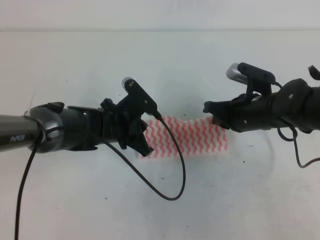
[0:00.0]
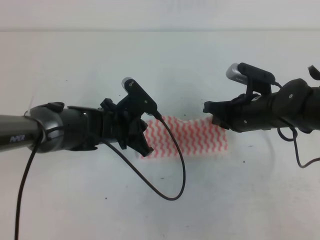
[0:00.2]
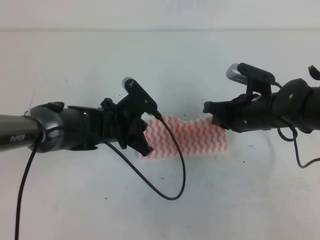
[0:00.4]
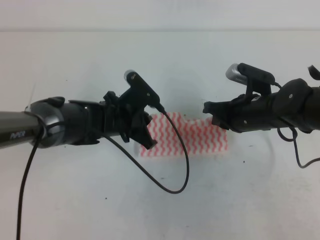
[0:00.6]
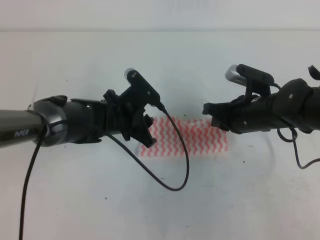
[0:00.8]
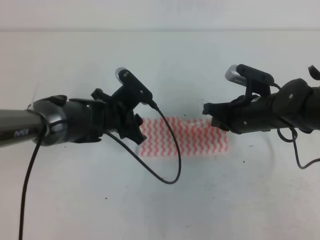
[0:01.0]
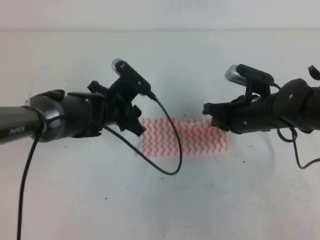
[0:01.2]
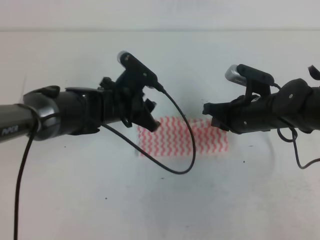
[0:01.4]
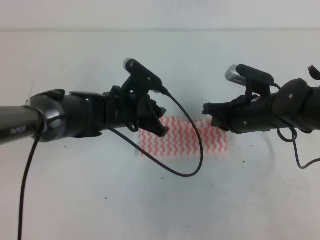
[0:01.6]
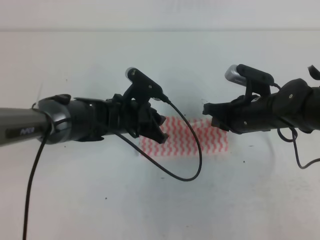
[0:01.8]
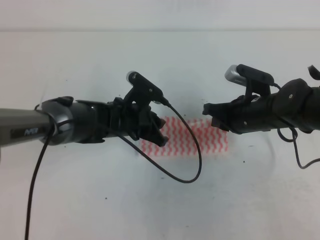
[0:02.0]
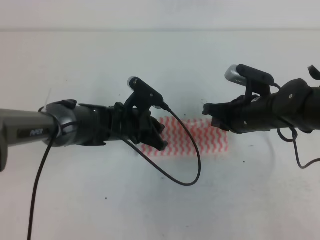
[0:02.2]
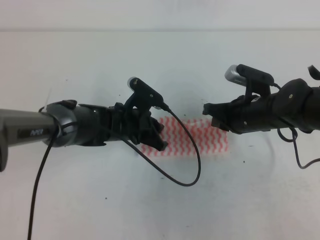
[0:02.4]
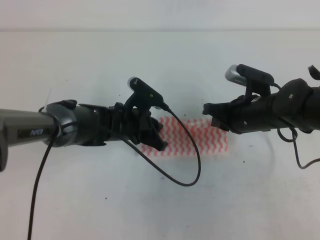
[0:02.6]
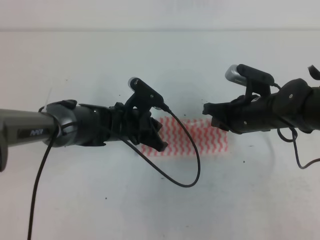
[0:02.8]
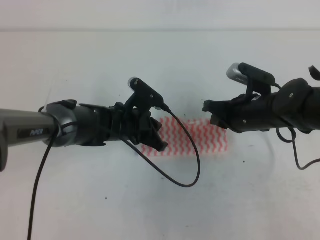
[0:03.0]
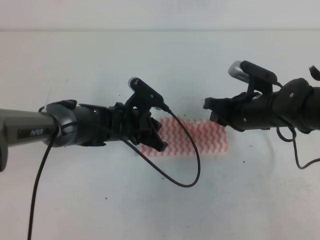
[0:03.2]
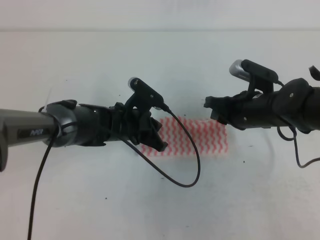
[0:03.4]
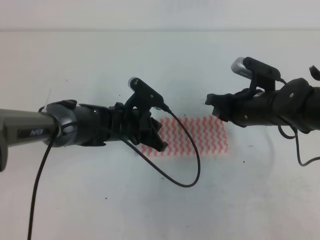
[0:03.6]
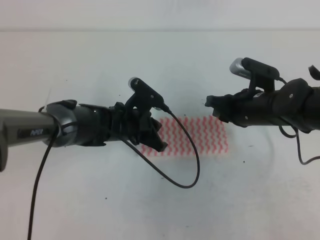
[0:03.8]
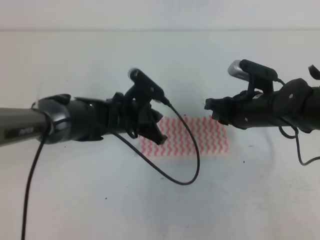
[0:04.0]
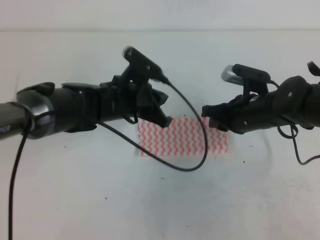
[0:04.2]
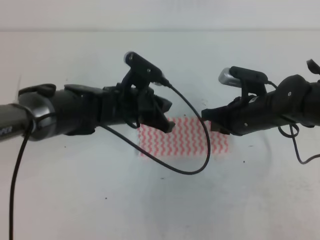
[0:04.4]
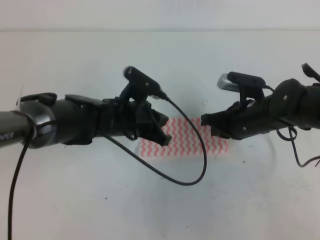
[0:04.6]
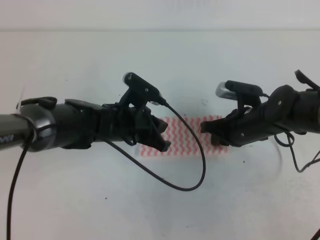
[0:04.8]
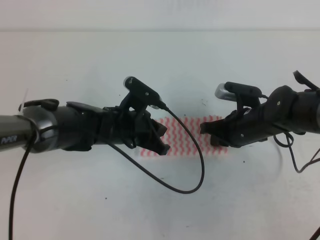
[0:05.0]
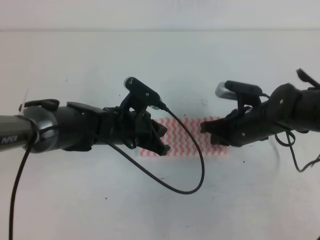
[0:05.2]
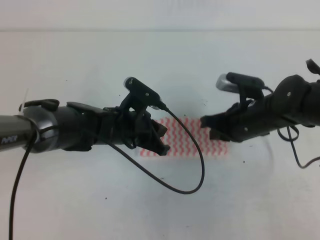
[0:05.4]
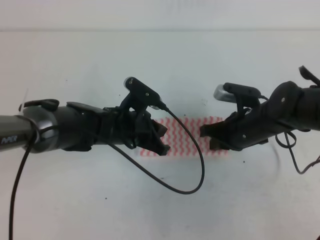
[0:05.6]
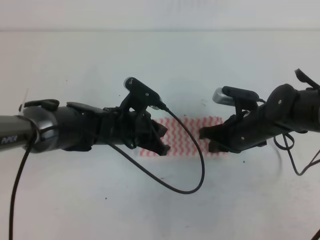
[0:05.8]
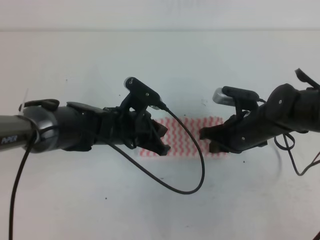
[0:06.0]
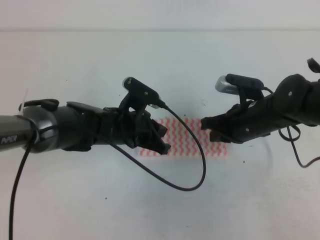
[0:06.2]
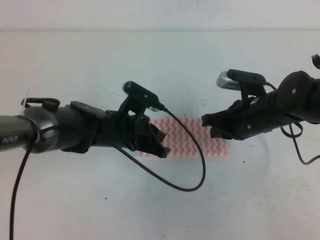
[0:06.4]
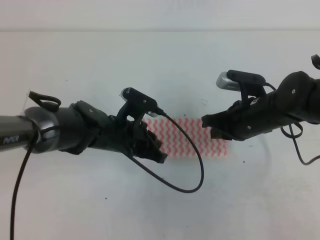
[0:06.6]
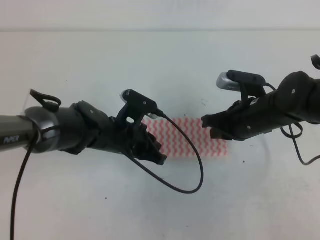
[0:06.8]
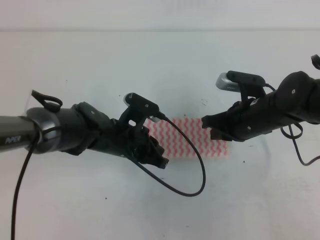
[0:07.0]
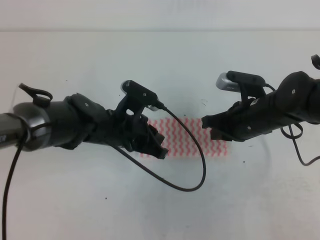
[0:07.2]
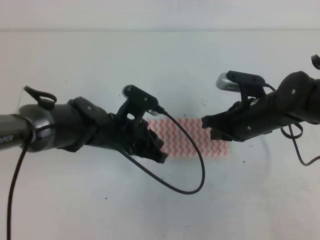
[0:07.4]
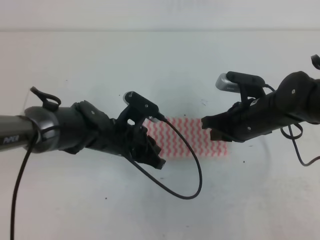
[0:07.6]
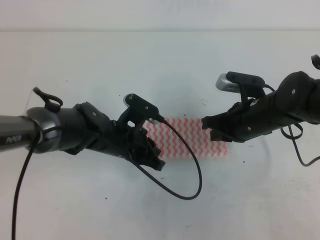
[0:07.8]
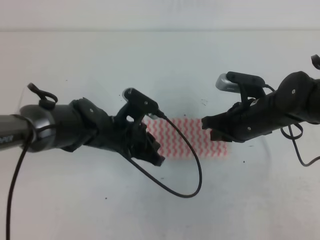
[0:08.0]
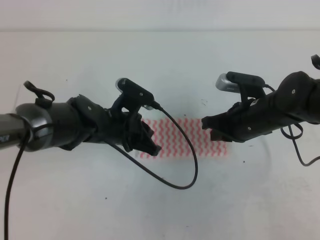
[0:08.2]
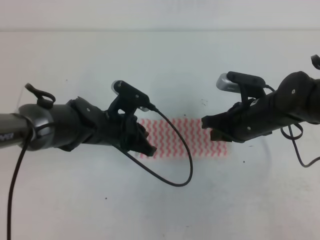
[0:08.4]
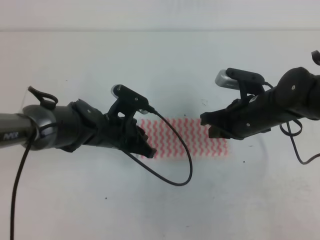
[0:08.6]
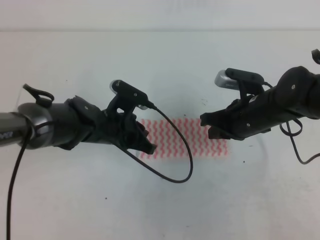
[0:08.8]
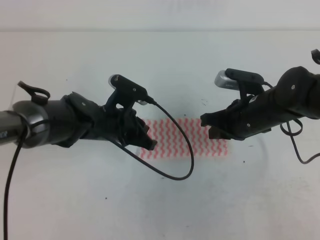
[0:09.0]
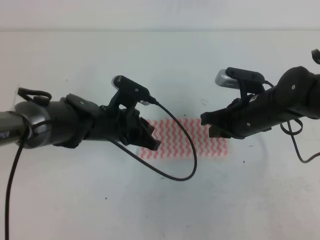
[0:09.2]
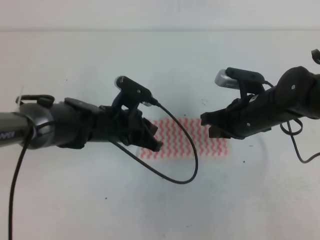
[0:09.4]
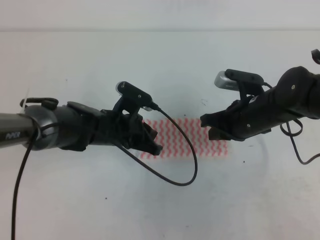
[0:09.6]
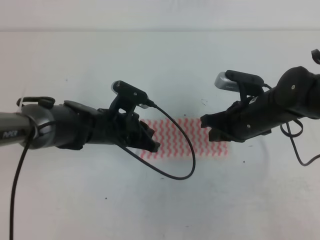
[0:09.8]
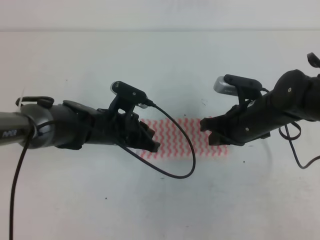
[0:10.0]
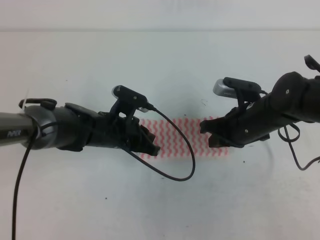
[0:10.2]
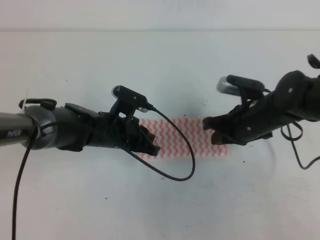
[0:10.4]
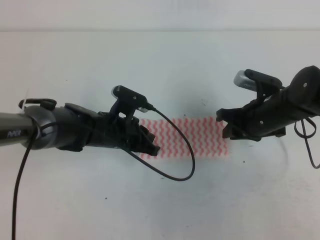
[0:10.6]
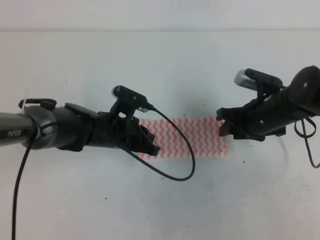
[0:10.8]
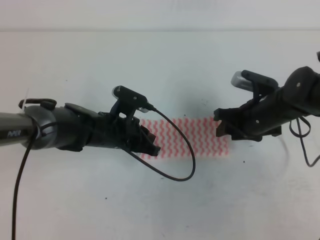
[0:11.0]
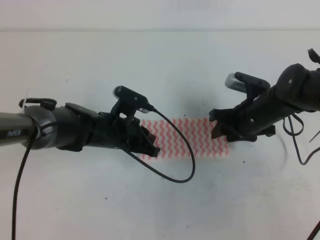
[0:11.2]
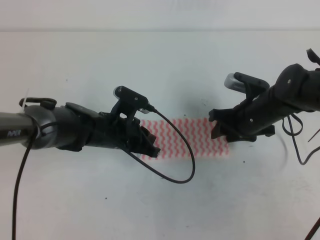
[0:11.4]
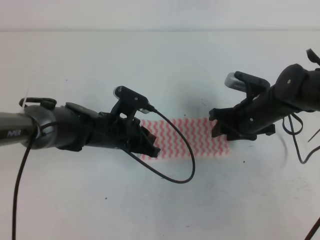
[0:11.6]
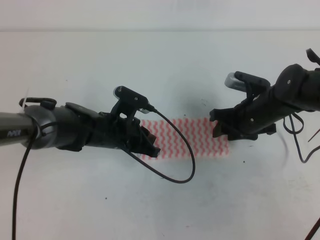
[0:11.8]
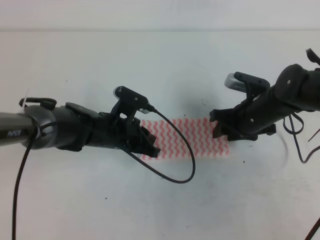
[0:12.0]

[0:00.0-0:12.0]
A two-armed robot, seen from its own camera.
Step, 0:00.0 to 0:04.4: Fold the towel from right to left with the right gripper.
Step, 0:04.6 to 0:08.8: Tidy up the towels.
0:00.0 to 0:01.6: The left gripper opens its fingers.
0:01.6 to 0:03.0: The left gripper closes up.
0:03.0 to 0:04.4: The left gripper heads upward, covering approximately 5 cm.
0:06.0 to 0:10.4: The grippers make only small movements.
0:10.4 to 0:12.0: The right gripper opens up.

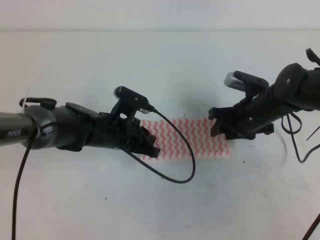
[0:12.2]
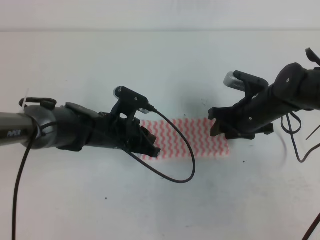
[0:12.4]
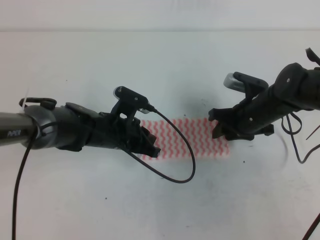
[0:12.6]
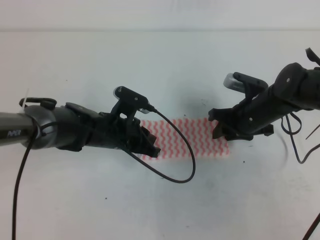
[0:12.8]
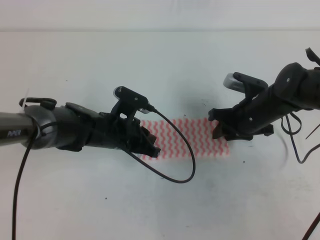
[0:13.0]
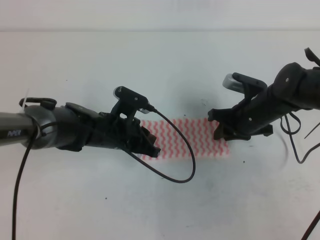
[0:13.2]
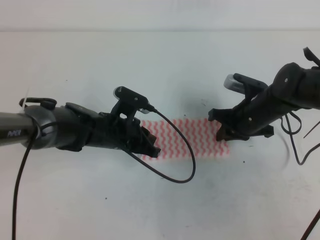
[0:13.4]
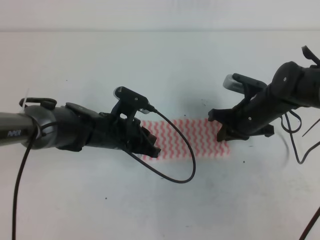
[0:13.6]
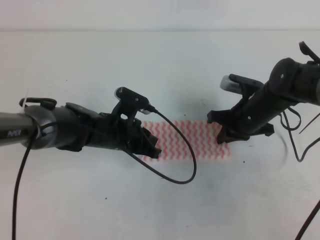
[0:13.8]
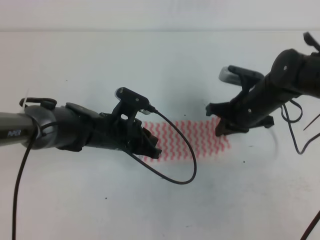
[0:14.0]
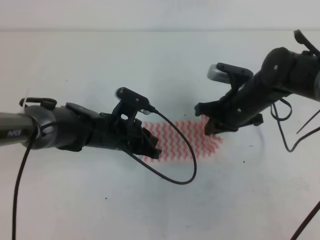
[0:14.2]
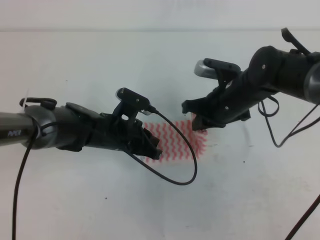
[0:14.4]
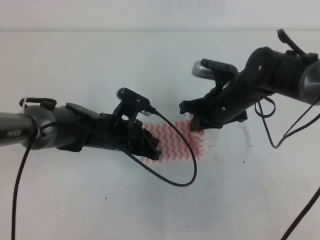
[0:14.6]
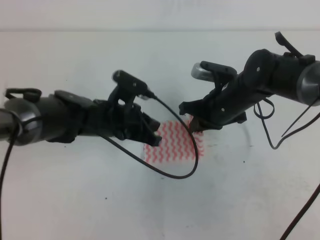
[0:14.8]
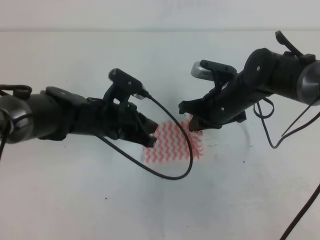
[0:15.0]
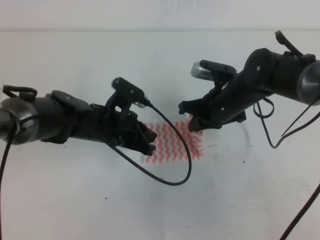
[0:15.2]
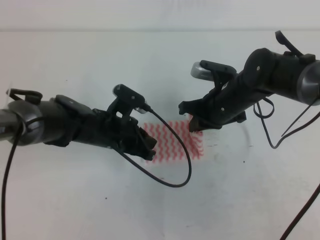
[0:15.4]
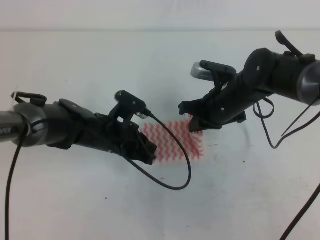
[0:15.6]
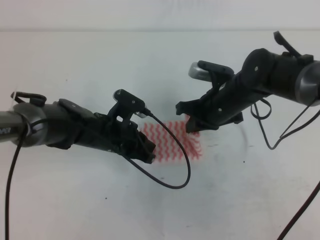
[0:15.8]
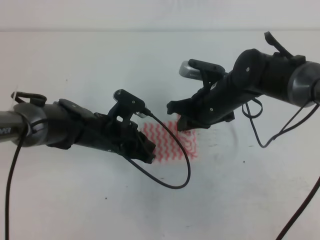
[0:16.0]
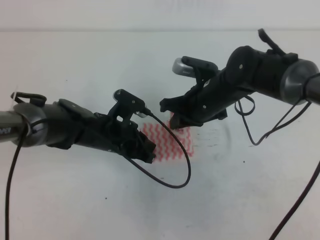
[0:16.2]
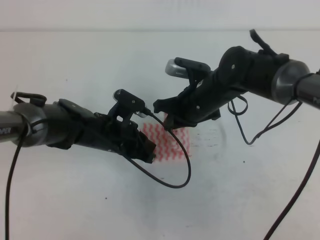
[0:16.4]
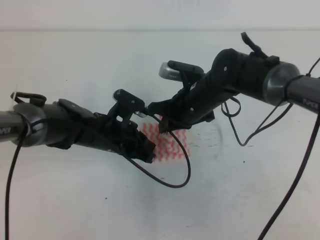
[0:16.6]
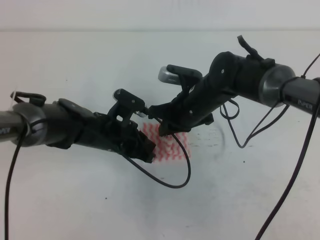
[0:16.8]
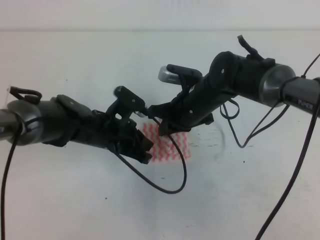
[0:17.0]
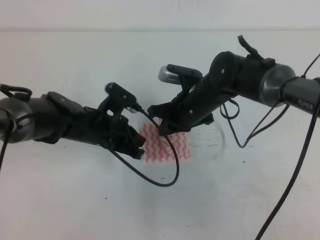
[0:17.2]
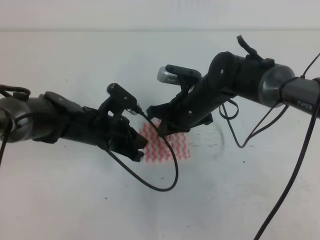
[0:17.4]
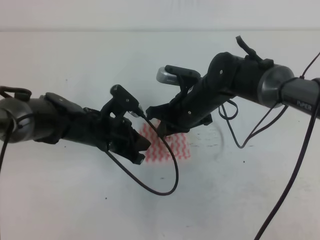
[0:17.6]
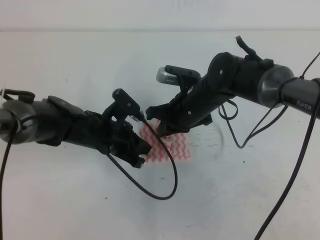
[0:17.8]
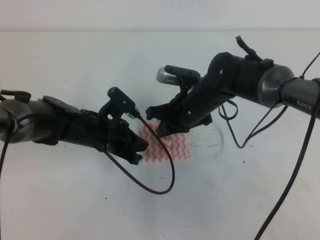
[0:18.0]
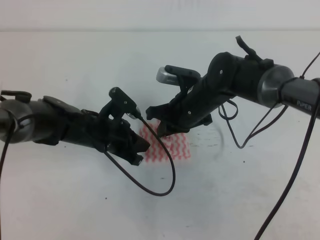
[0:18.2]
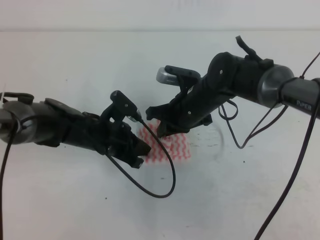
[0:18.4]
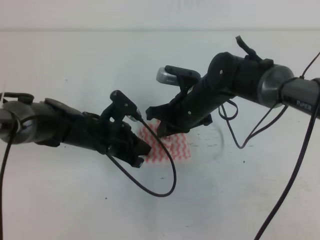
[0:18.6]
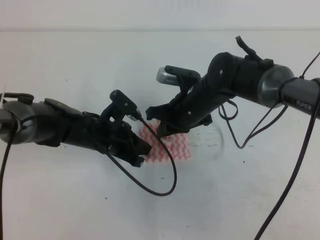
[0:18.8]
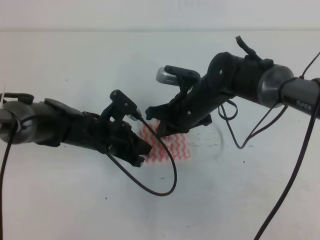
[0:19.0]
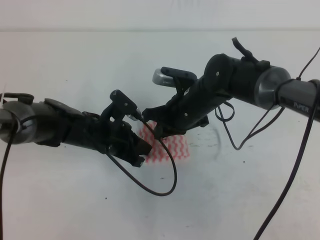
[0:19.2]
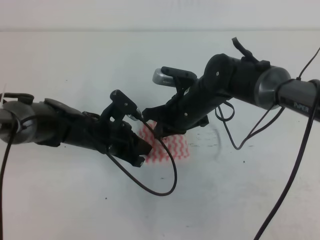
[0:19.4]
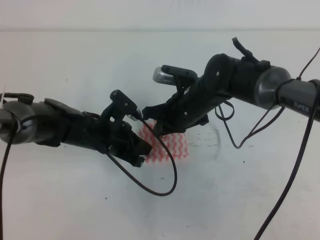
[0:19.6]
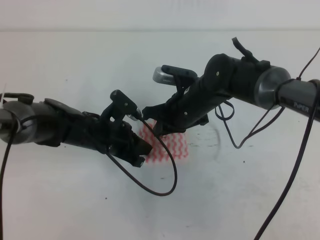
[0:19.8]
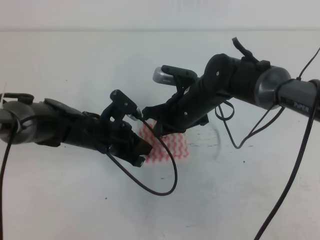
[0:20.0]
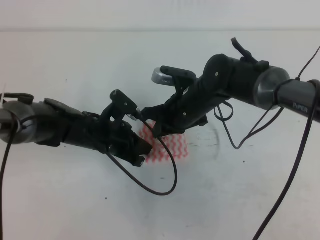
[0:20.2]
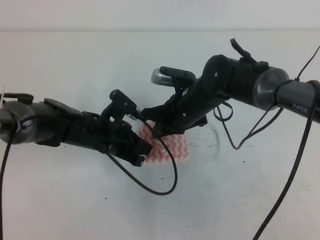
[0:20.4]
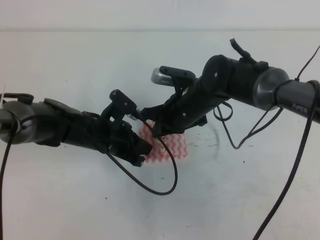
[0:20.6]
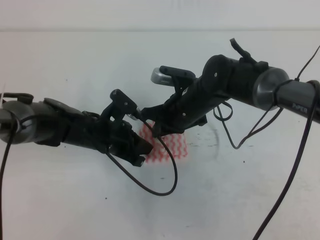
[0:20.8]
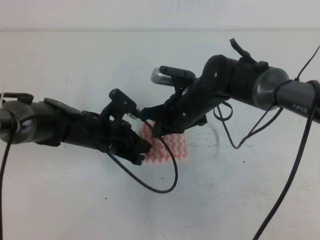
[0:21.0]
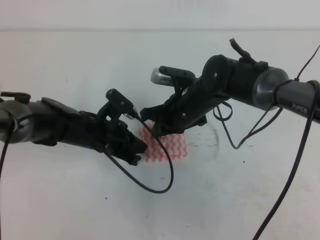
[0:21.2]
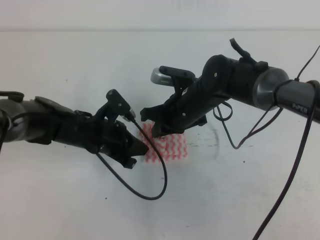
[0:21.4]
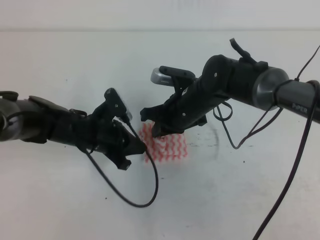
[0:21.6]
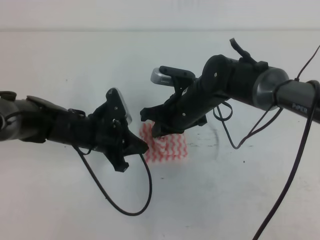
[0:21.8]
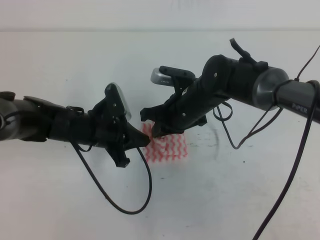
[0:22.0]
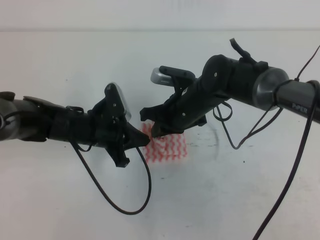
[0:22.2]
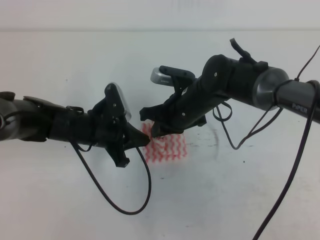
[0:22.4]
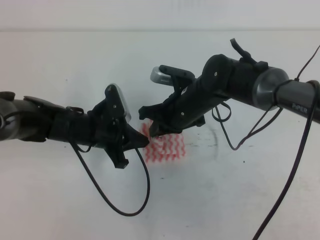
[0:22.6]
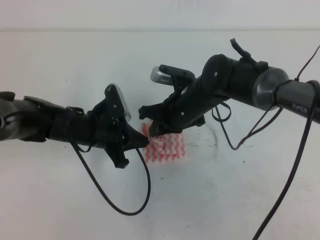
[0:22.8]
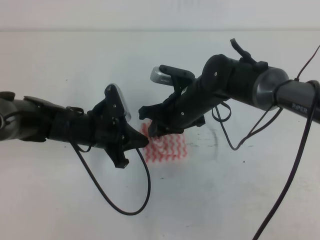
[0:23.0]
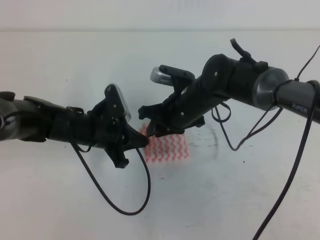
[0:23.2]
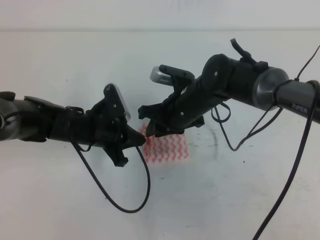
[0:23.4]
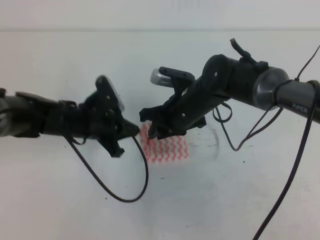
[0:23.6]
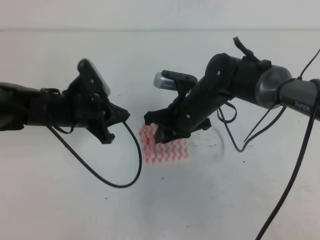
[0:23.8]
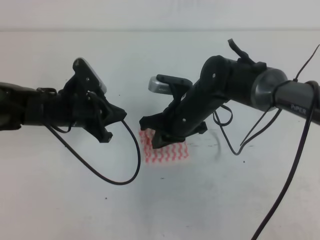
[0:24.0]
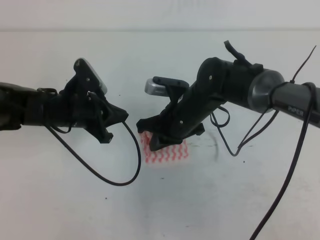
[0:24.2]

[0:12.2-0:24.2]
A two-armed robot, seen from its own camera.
0:12.2 to 0:13.8: The right gripper closes its fingers.
0:13.8 to 0:15.2: The right gripper is displaced to the left by approximately 5 cm.
0:15.2 to 0:16.6: The right gripper travels to the left by approximately 5 cm.
0:16.6 to 0:18.2: The grippers move only a little.
0:18.2 to 0:21.2: Neither gripper changes place.
0:22.6 to 0:24.2: The right gripper opens, then closes again. Meanwhile the left gripper moves some 5 cm.
